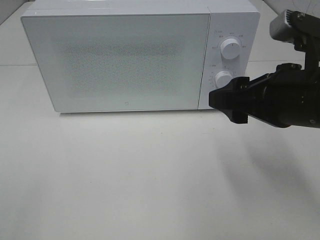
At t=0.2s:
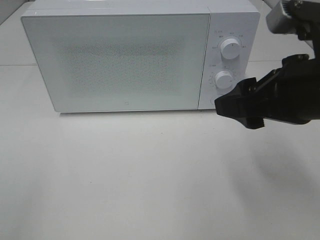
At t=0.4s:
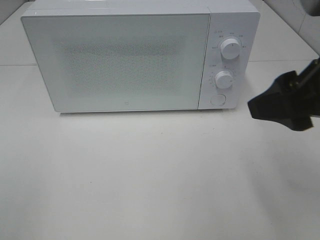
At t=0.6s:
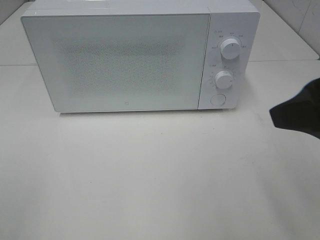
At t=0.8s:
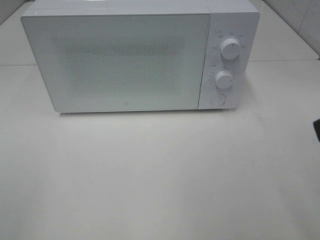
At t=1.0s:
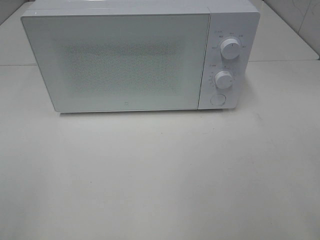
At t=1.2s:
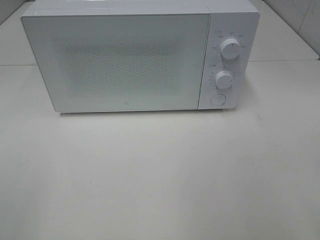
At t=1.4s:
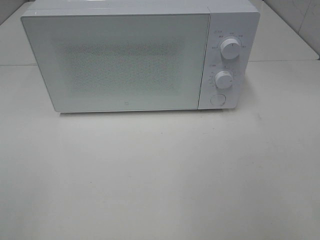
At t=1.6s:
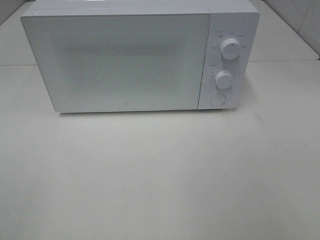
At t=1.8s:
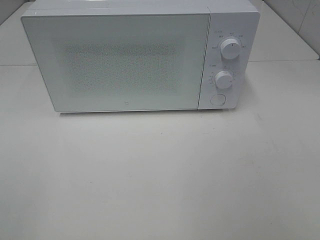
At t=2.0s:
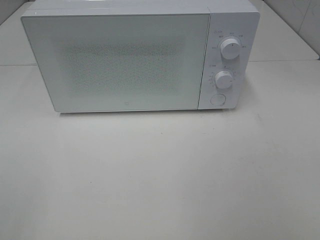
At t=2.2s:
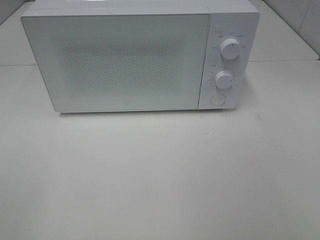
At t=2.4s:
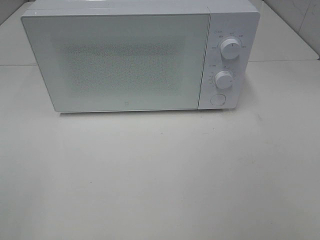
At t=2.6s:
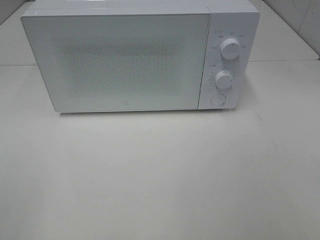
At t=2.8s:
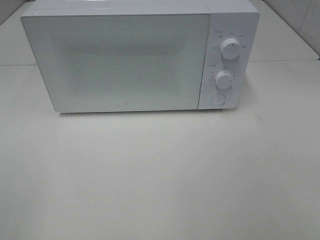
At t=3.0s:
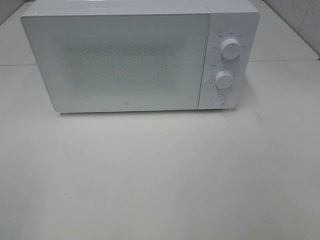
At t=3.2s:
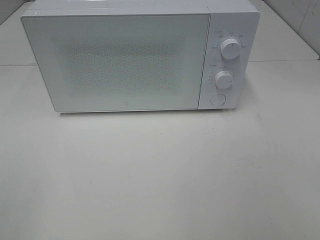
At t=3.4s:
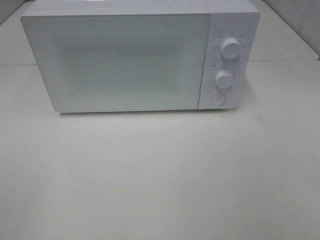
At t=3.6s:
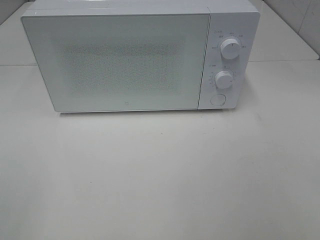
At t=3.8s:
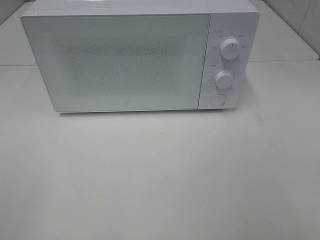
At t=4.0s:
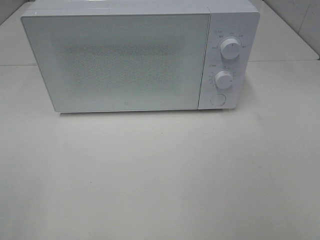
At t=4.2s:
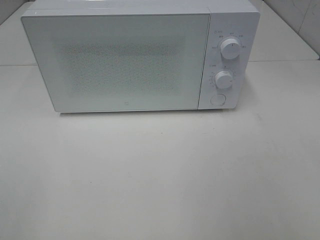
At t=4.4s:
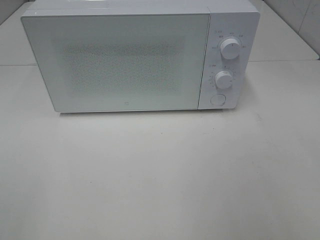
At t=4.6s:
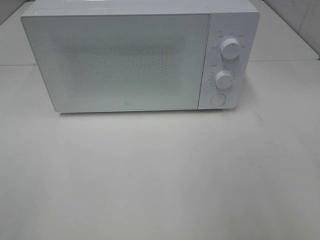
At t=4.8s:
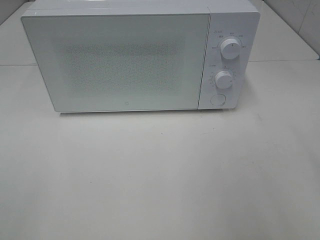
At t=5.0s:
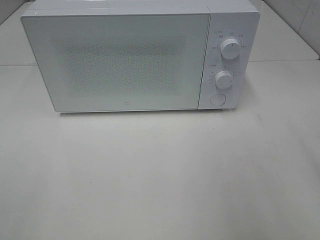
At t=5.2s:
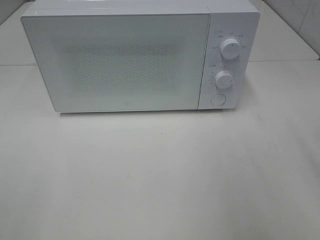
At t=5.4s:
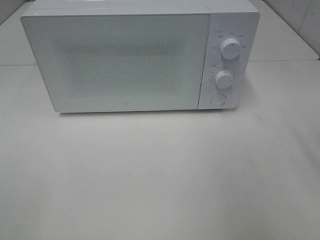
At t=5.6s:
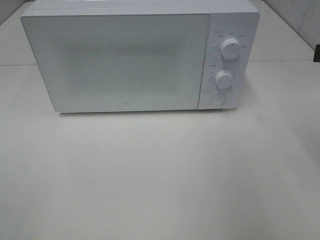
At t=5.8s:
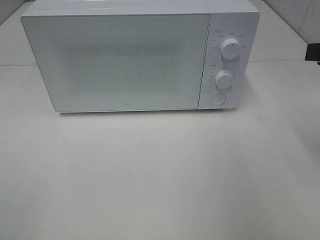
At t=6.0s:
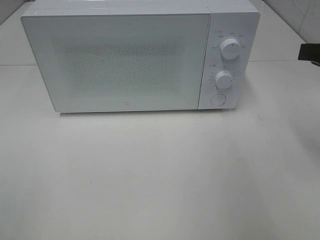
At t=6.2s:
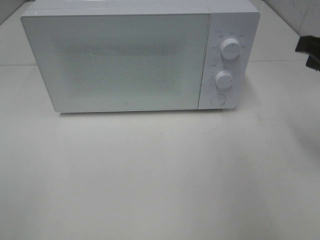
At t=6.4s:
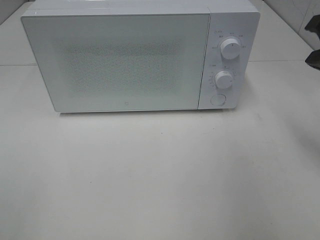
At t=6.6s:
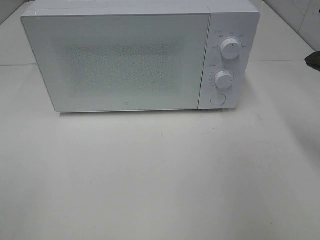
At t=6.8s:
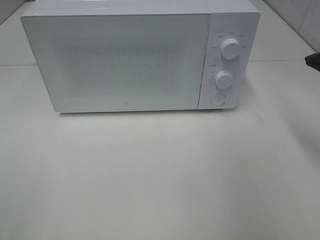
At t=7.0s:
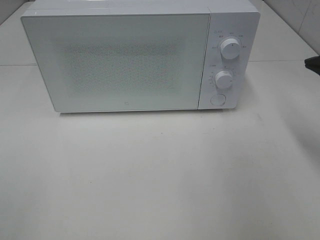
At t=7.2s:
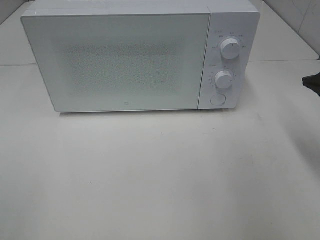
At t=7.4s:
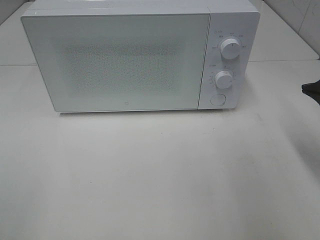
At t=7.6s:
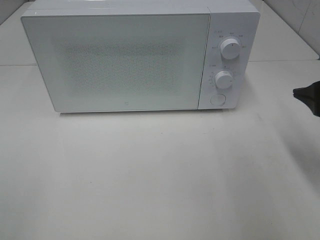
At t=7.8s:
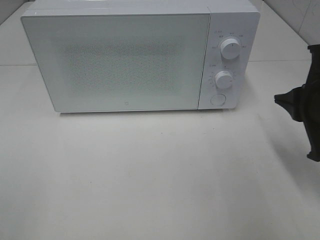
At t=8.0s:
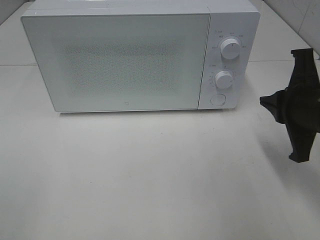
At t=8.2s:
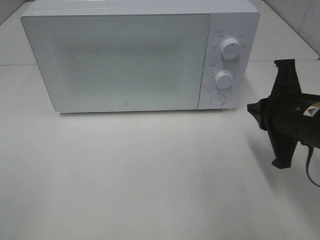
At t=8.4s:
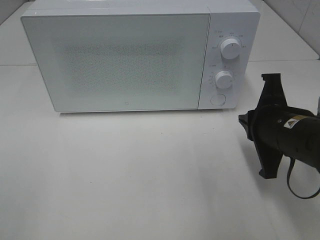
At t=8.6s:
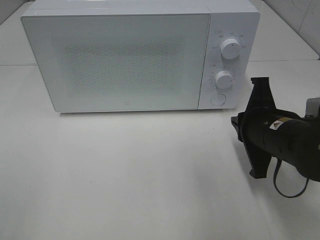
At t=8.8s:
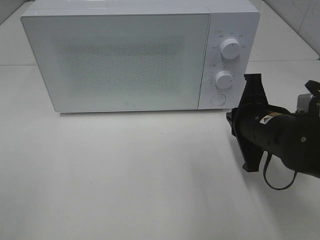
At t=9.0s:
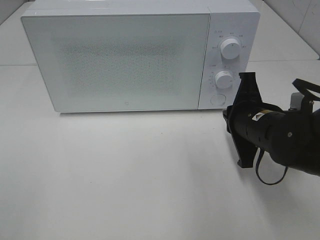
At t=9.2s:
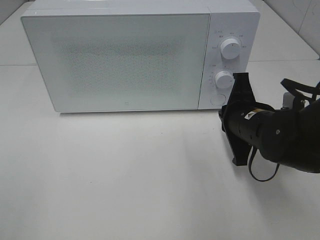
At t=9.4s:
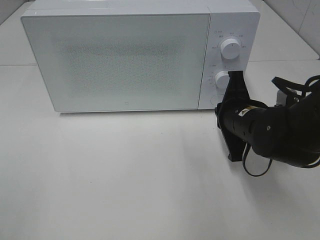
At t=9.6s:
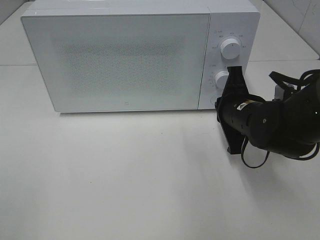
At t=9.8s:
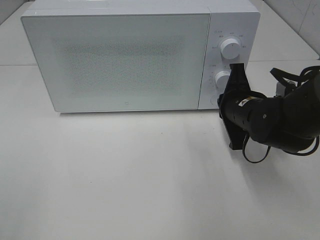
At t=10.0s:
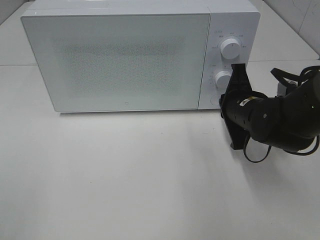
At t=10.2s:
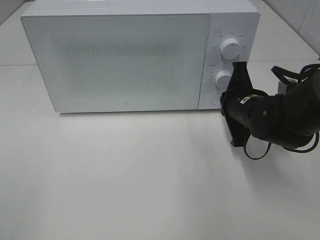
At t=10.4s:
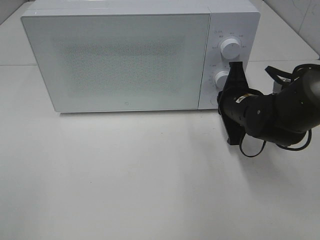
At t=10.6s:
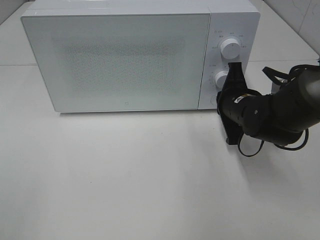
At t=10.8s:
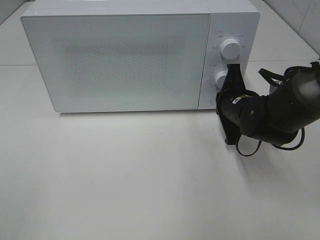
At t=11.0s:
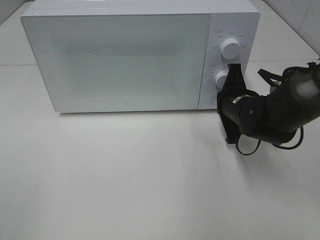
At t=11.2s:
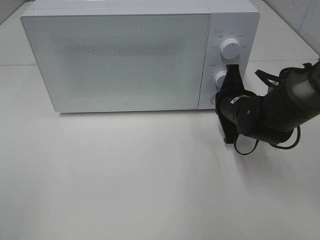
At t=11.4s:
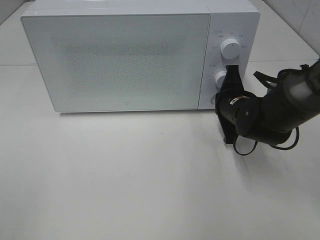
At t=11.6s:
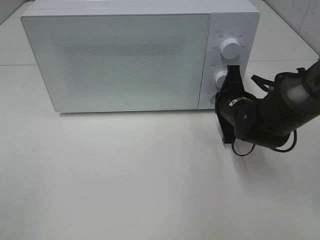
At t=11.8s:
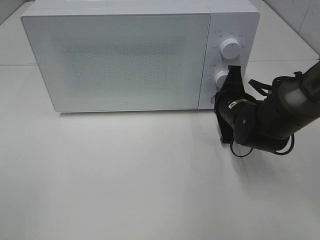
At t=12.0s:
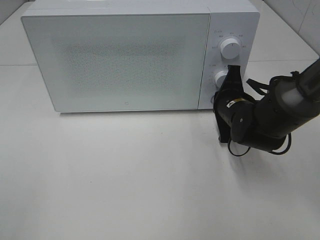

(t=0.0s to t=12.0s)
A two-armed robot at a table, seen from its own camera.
Task of the whole recording: Heat the burger.
t=0.0s - t=1.6s: The right gripper moves backward, to the right and upward, about 20 cm.
t=4.4s - t=6.0s: The right gripper heads forward, covering about 15 cm, and closes up.
t=6.0s - t=7.6s: The right gripper shifts by approximately 5 cm.
t=7.6s - t=9.0s: The right gripper is displaced to the left, downward and forward by some 15 cm.
t=9.0s - t=10.4s: The right gripper goes approximately 5 cm forward.
t=10.4s - t=12.0s: There are only small adjustments of the grippers.

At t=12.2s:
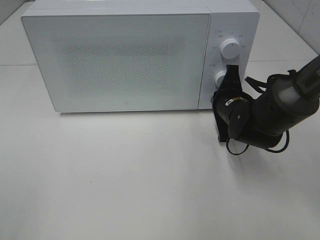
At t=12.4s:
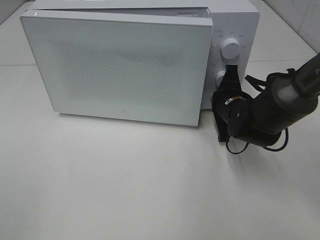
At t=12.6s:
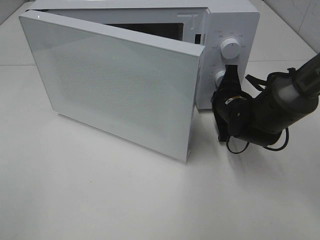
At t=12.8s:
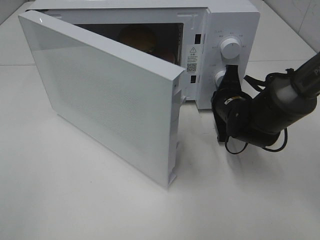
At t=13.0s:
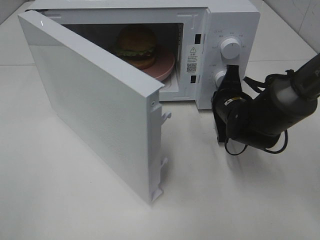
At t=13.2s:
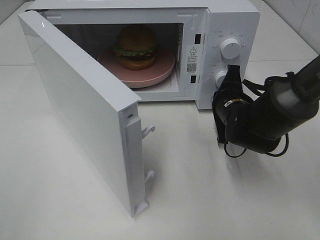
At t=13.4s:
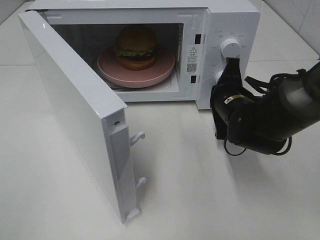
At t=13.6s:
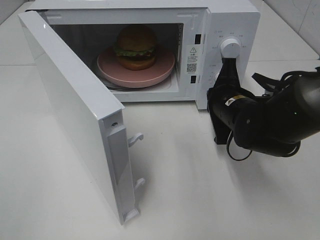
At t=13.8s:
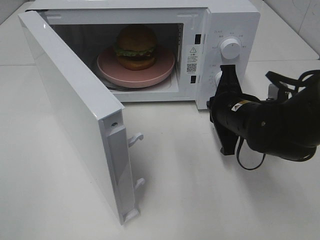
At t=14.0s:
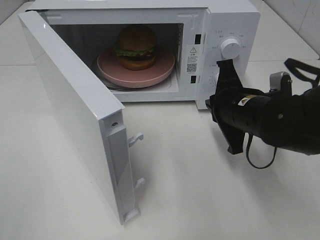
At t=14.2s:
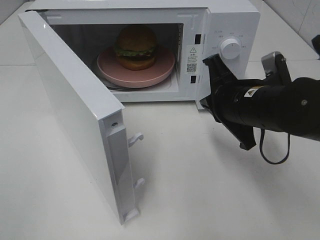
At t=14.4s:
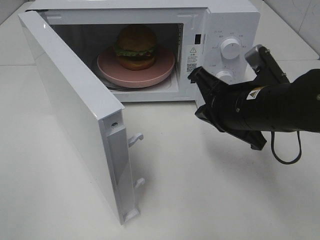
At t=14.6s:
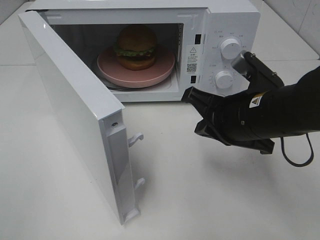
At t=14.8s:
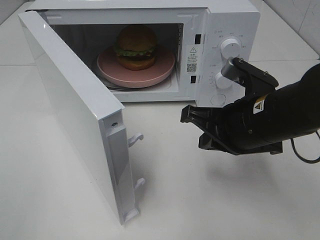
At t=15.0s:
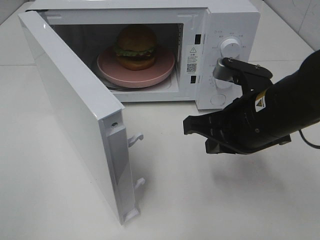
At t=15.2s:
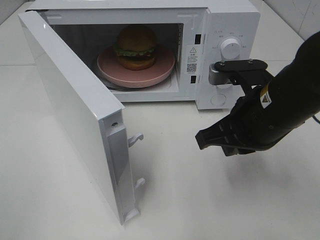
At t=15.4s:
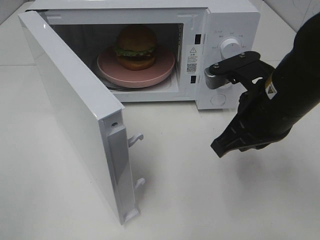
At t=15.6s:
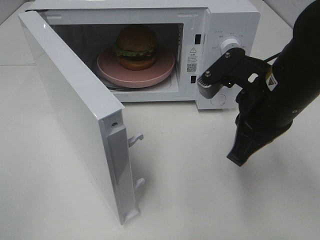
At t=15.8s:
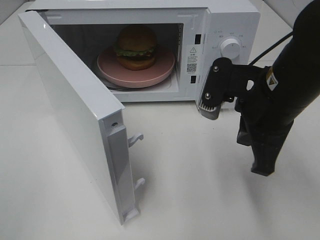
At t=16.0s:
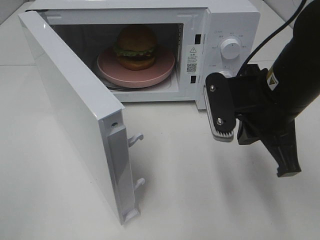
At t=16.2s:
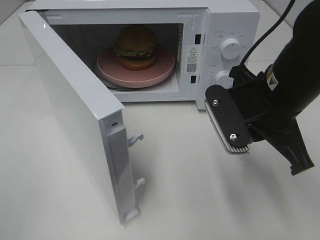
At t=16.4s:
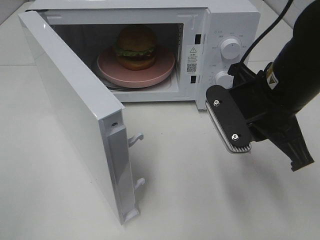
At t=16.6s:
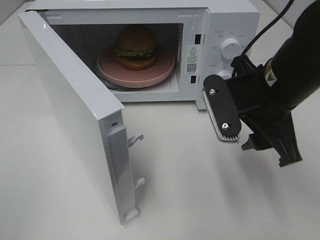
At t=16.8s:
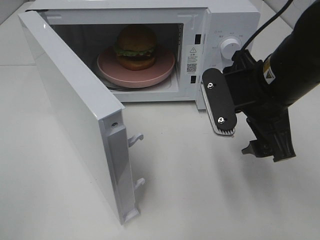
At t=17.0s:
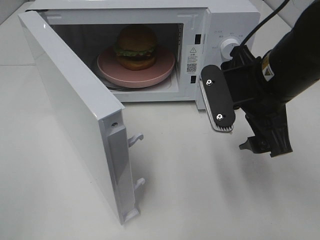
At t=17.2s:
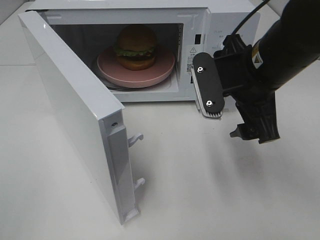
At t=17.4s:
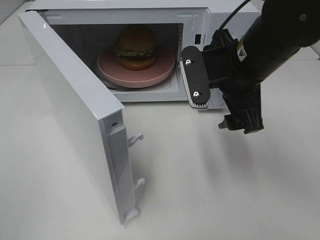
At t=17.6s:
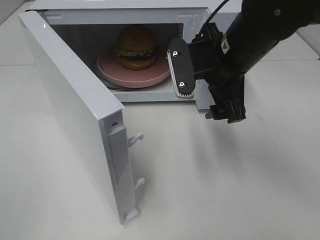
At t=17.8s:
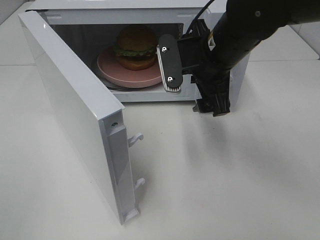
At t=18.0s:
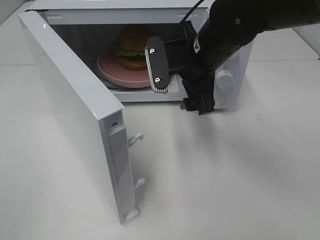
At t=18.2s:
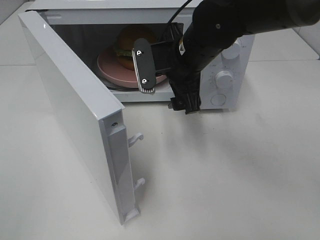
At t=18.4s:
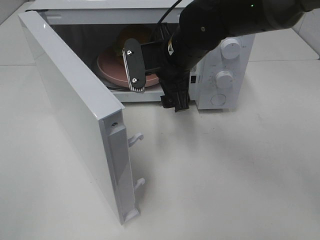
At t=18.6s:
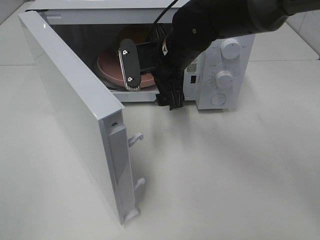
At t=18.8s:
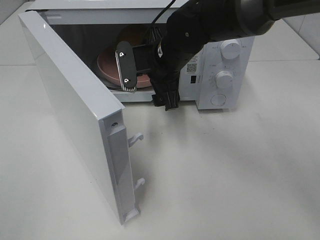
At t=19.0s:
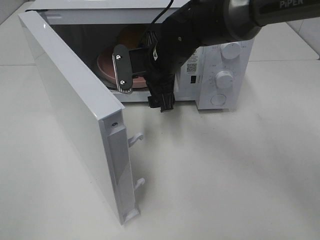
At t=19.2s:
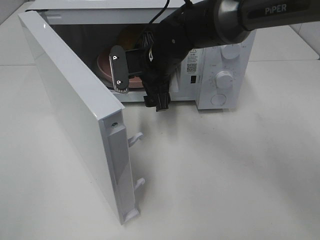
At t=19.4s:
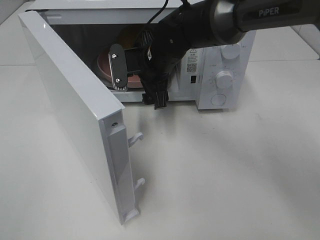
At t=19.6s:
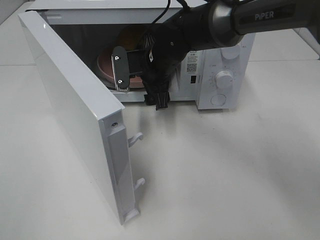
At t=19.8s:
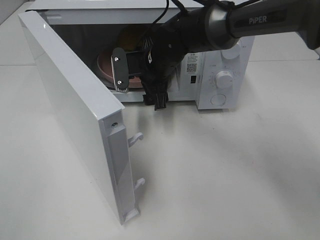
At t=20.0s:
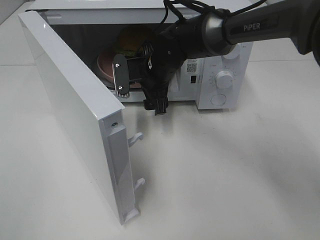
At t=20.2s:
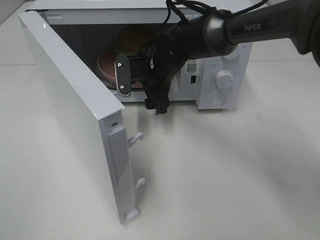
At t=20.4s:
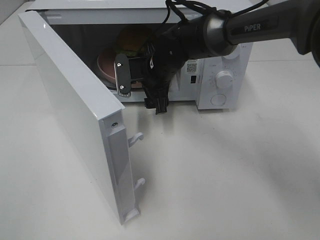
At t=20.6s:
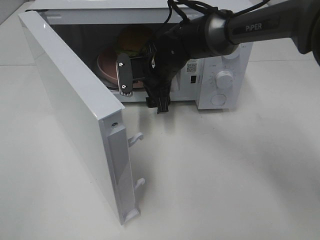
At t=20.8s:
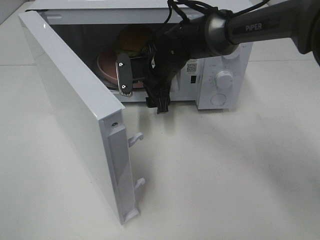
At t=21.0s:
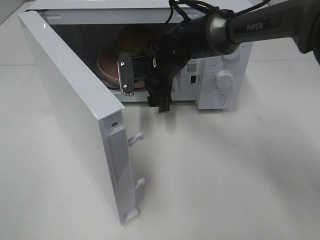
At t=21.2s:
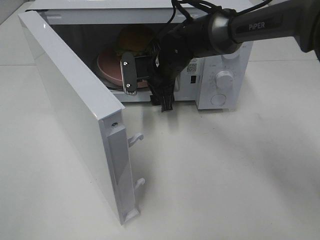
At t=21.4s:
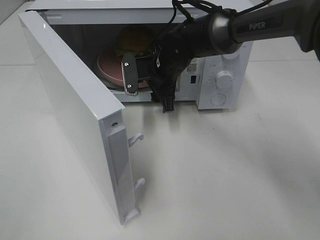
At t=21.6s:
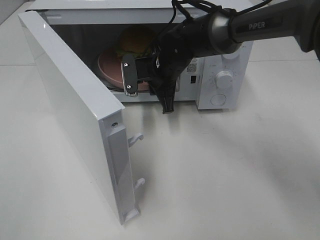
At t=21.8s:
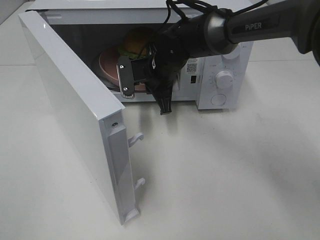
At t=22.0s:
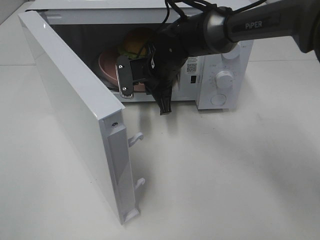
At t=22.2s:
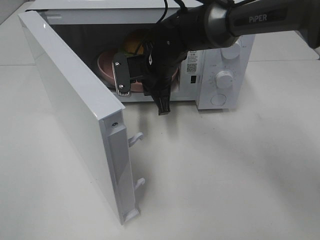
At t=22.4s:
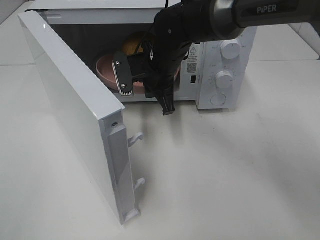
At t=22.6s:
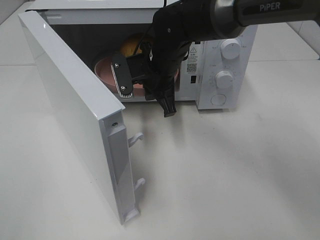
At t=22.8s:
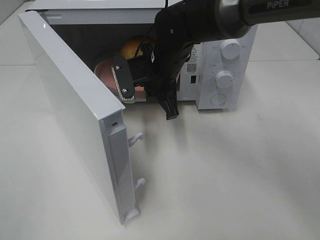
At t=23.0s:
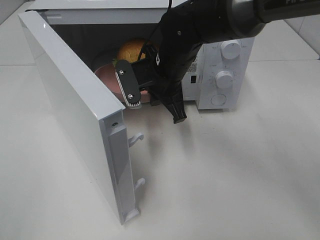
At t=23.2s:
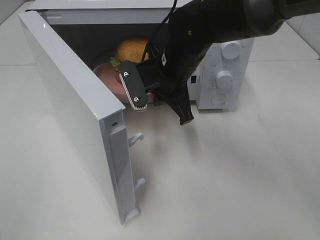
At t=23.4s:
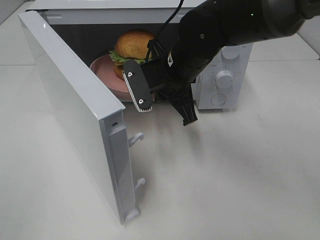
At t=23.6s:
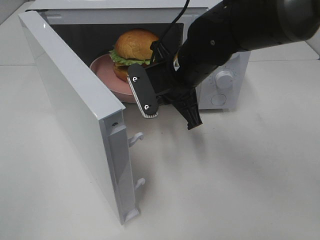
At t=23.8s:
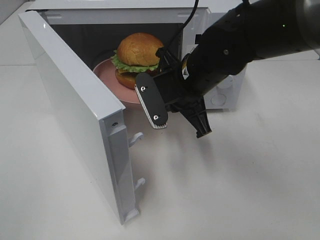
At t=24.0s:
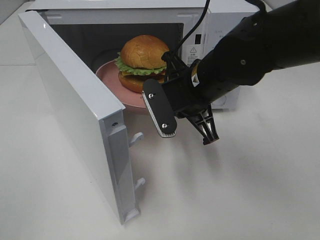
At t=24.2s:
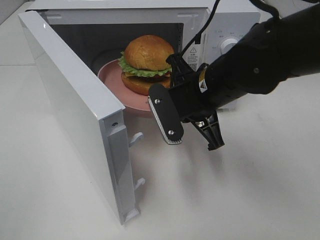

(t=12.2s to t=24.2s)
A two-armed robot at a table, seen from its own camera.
Task of the whole recording: Heat the burger.
Step, t=13.4s - t=22.0s: Right hand: grab the plate with the hamburger.
t=12.2s - t=13.8s: The right gripper is displaced backward by roughly 5 cm.
t=13.8s - t=15.2s: The right gripper goes approximately 10 cm upward and backward.
t=15.2s - t=16.6s: The right gripper opens up.
t=16.6s - t=18.2s: The right gripper moves forward and to the left, approximately 15 cm.
t=18.2s - t=19.8s: The right gripper shifts approximately 10 cm forward and downward.
t=19.8s - t=21.2s: There are only small adjustments of the grippers.
t=21.2s - t=22.6s: The right gripper closes its fingers.
t=22.6s - t=24.2s: The right gripper moves backward and to the right, approximately 15 cm.
